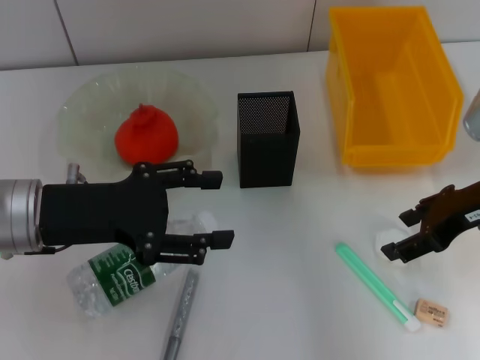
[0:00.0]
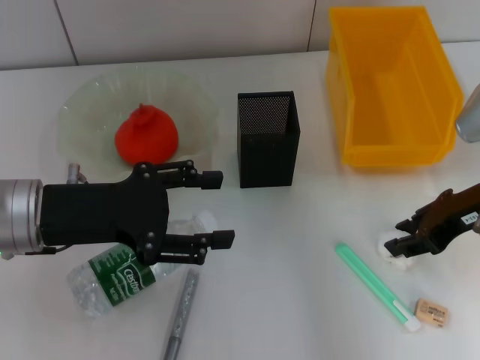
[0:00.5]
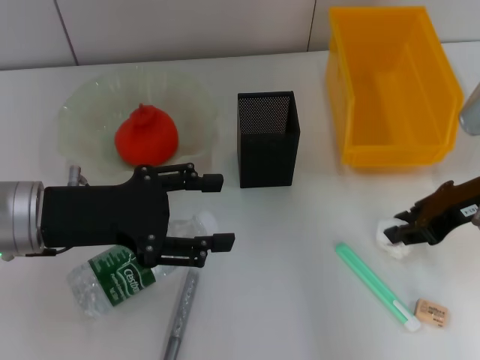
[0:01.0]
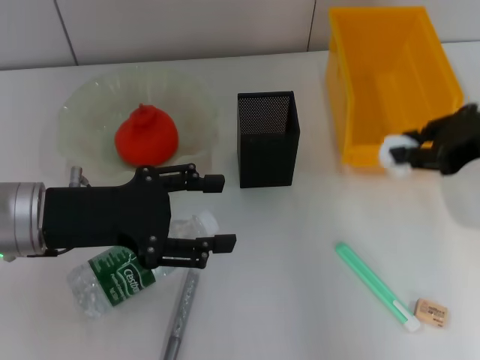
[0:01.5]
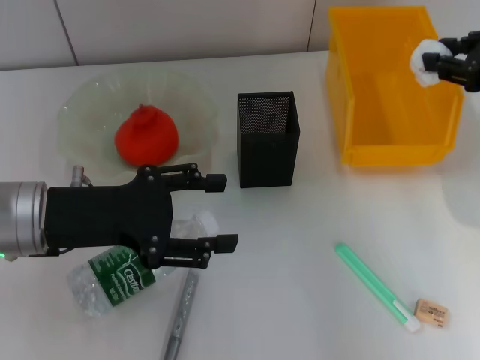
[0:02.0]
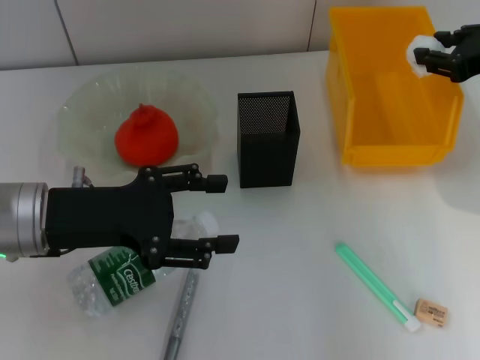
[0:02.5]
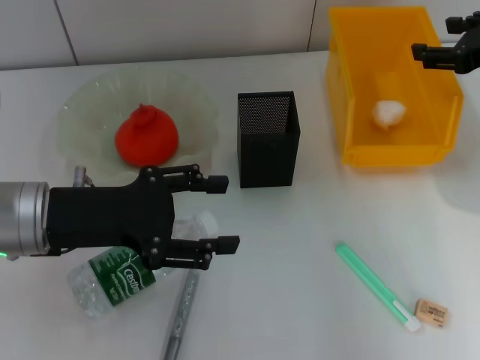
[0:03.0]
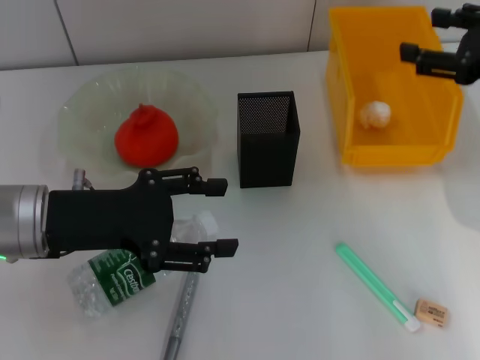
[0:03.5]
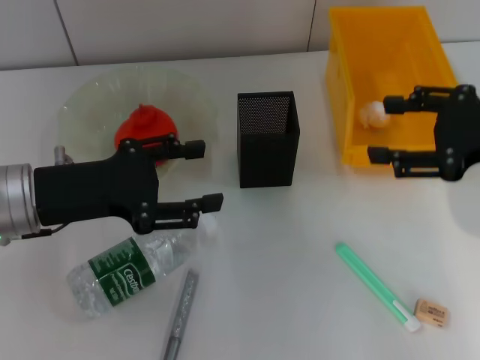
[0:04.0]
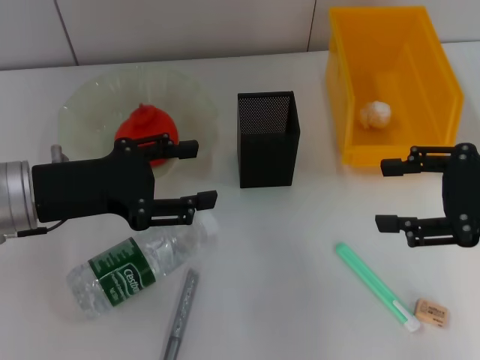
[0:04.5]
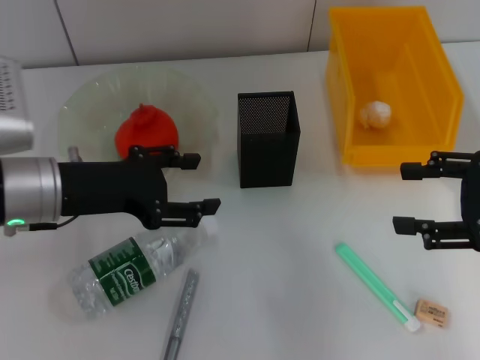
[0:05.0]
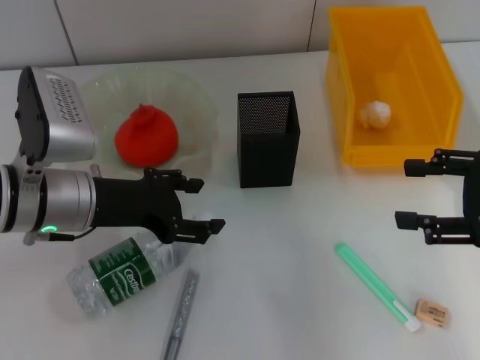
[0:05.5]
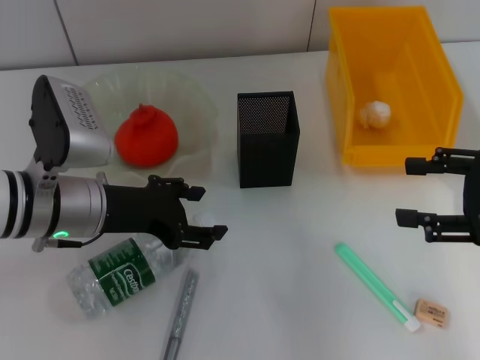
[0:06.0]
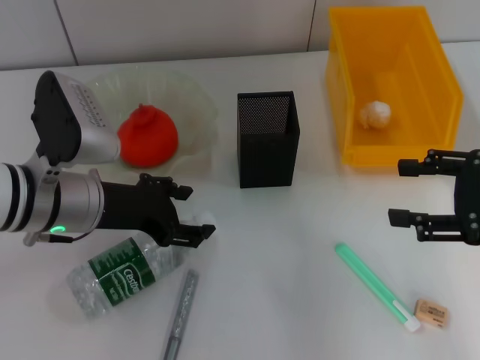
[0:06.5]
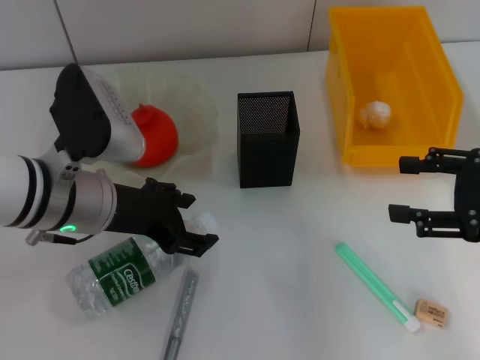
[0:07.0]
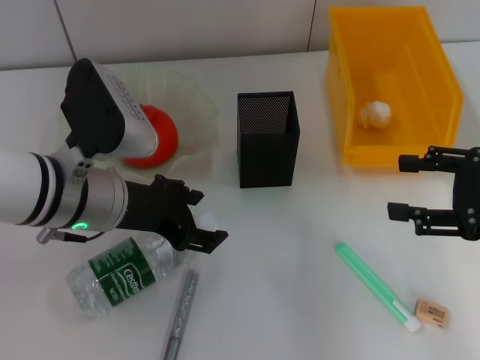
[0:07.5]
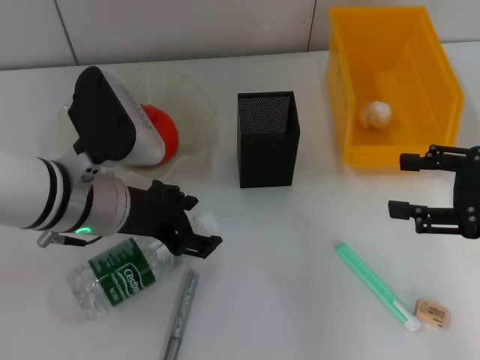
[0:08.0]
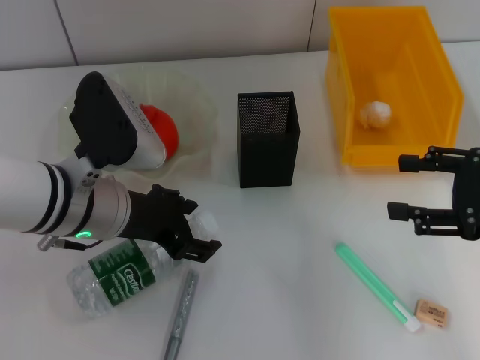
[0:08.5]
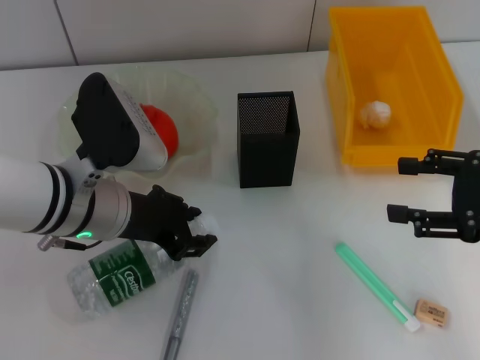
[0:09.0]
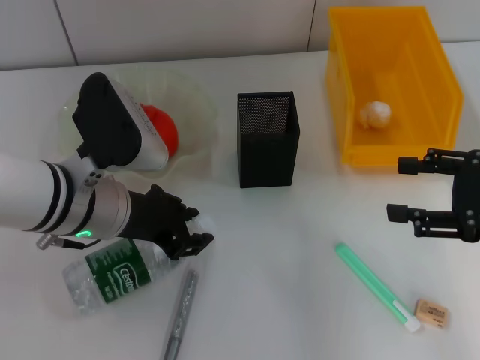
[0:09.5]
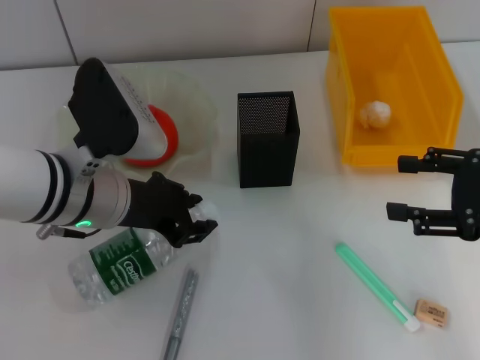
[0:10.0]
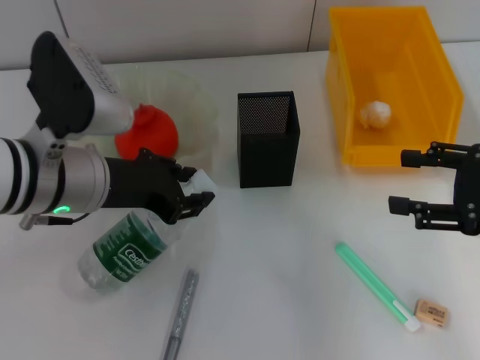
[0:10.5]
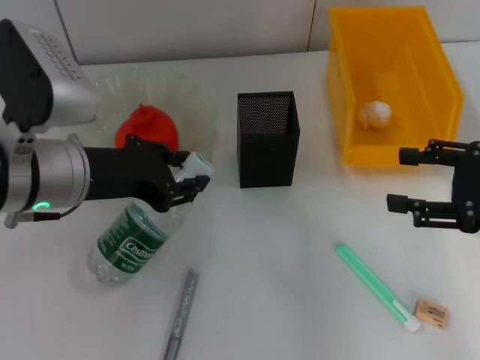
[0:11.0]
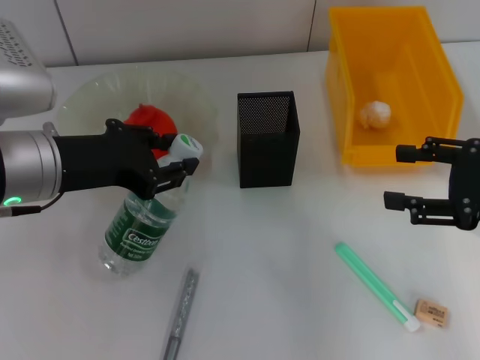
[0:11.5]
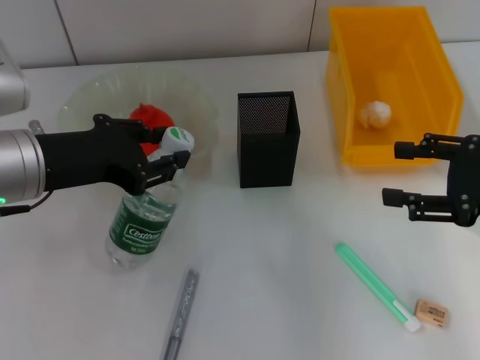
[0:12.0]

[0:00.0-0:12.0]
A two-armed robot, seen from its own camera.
Step, 1.0 to 3.0 s: Place the paper ball into the trash can with the right hand.
Step, 3.5 to 9.5 s: Grab the water bottle with the left hand.
0.0 to 2.0 s: The right gripper goes roughly 10 cm upward, and closes up.
2.0 to 4.0 s: The right gripper moves approximately 5 cm, and opens up.
4.0 to 6.0 s: The left gripper changes place by approximately 5 cm. Meanwhile the right gripper moves approximately 5 cm.
6.0 to 8.0 s: The grippers stay close to where they were, moving slightly.
8.0 to 10.0 s: The left gripper closes up.
10.0 to 12.0 s: The left gripper goes some 5 cm to the left.

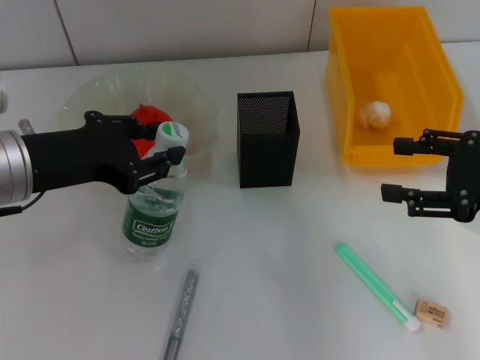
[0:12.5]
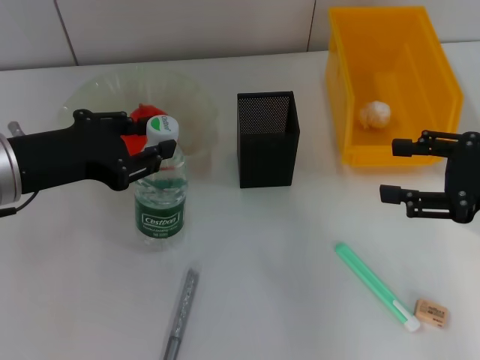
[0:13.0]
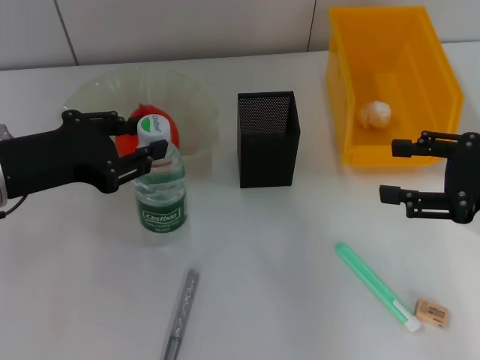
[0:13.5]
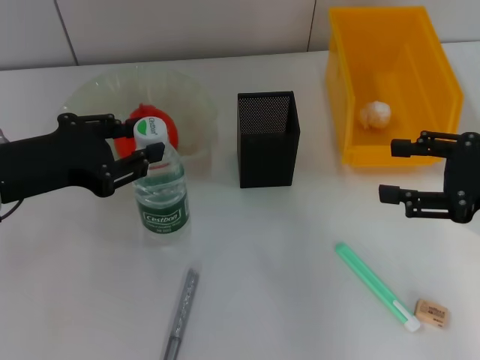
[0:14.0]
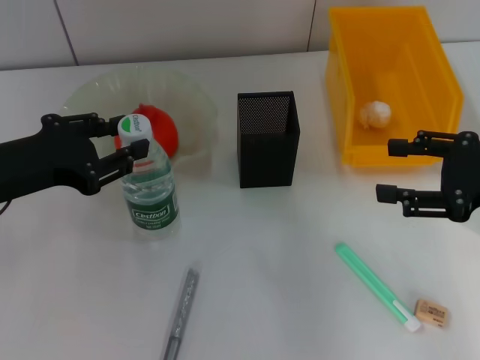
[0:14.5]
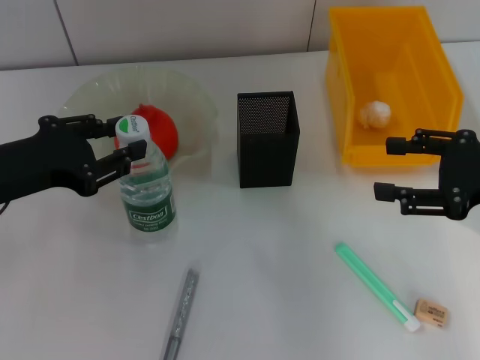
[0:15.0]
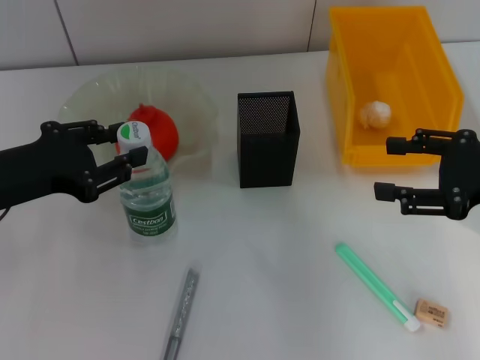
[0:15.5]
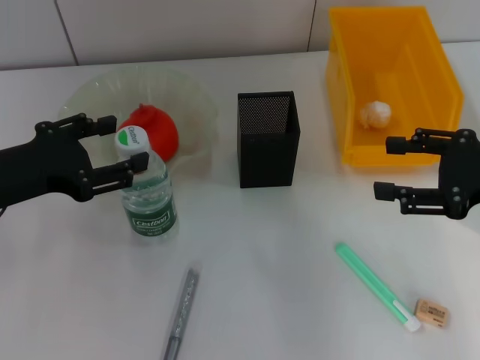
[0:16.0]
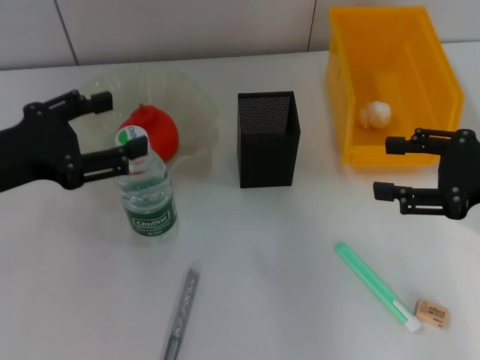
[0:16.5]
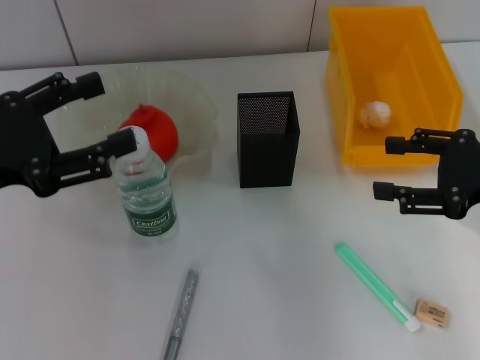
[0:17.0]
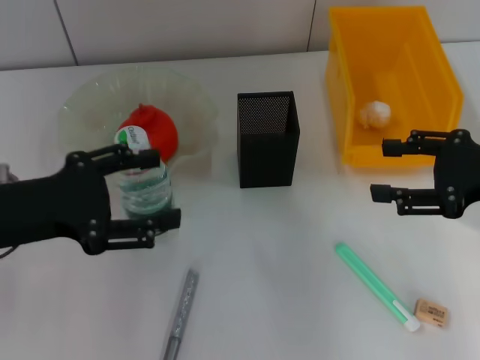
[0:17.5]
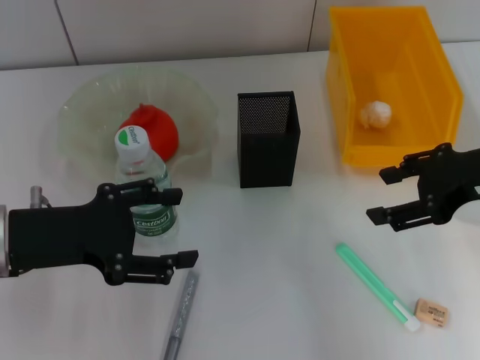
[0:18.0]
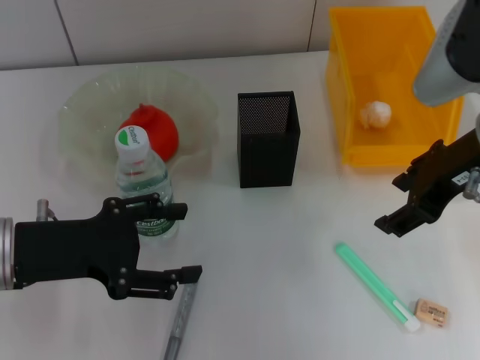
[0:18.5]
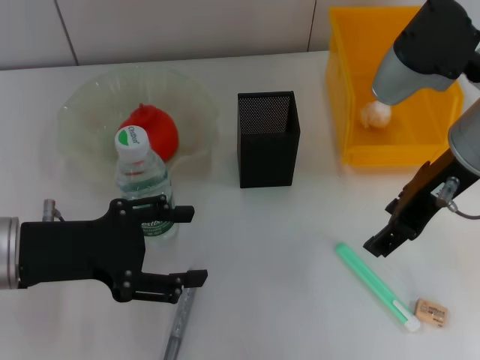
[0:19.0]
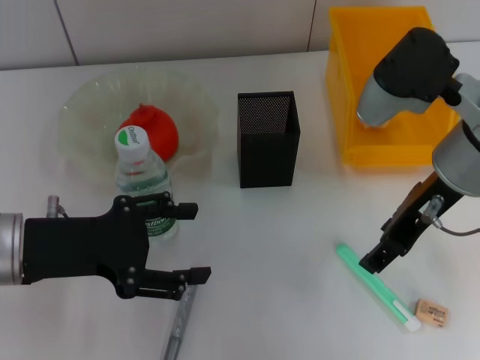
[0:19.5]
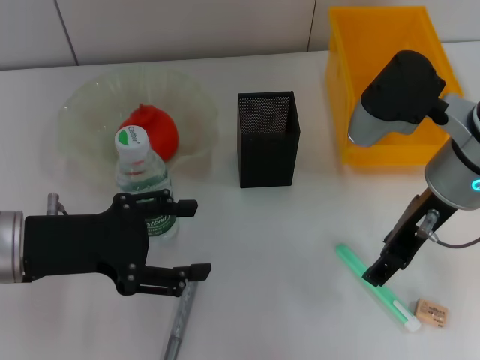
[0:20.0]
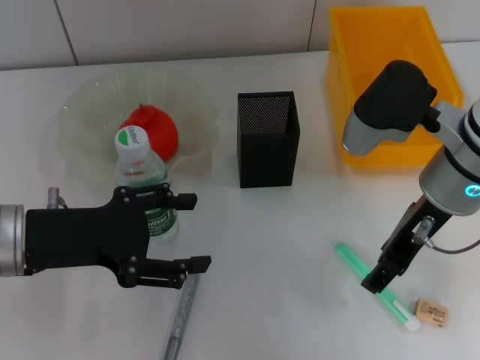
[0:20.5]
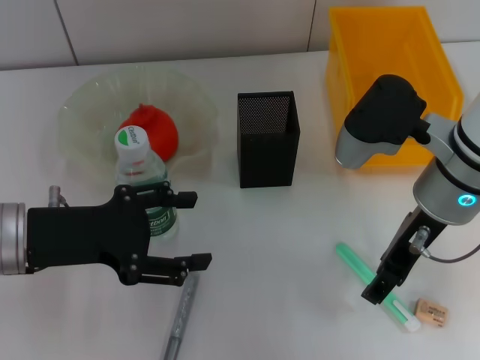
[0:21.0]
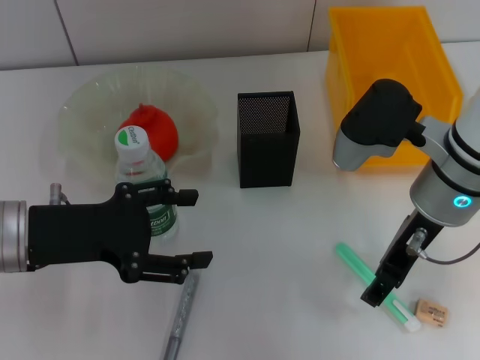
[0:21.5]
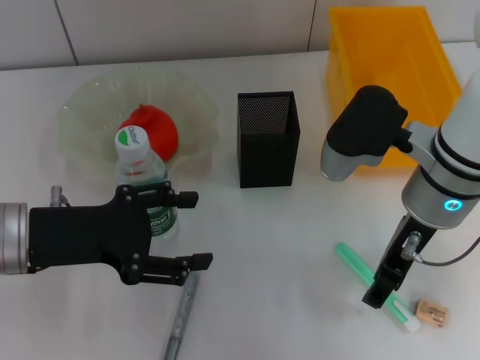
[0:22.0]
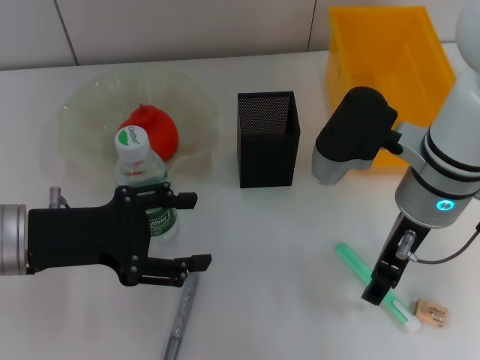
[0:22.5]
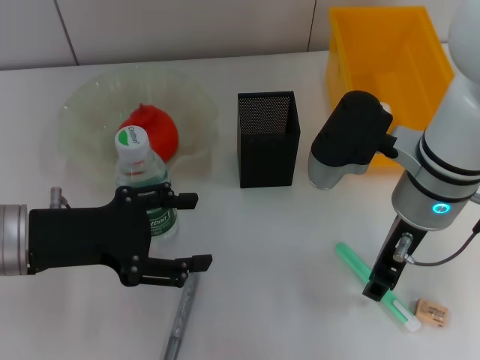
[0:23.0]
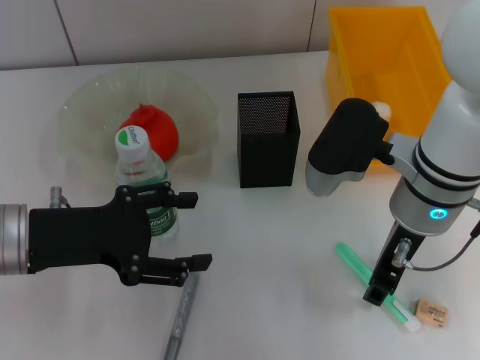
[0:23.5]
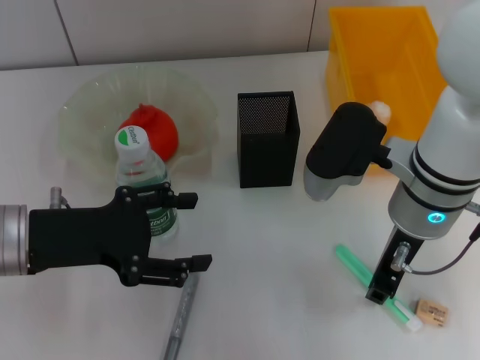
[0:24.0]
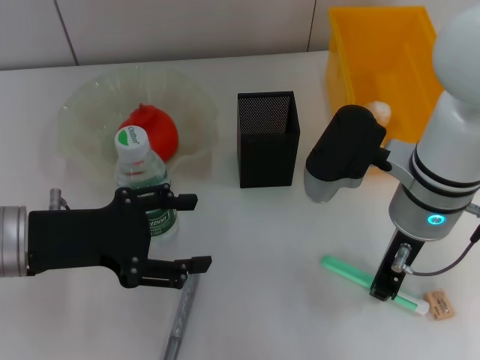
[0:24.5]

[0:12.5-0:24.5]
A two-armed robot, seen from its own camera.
Step, 12.5 to 16.0 s: Place the water bottle on the table with the left hand.
12.5 to 14.5 s: The grippers make only small movements.
14.5 to 16.5 s: The left gripper opens its fingers.
16.5 to 18.5 s: The right gripper travels to the left and upward by about 10 cm.
18.5 to 20.5 s: The right gripper heads downward, covering roughly 5 cm.
20.5 to 22.5 s: The grippers move only a little.
22.5 to 24.5 s: The right gripper closes up.

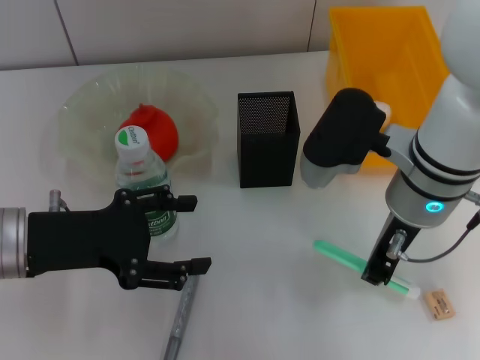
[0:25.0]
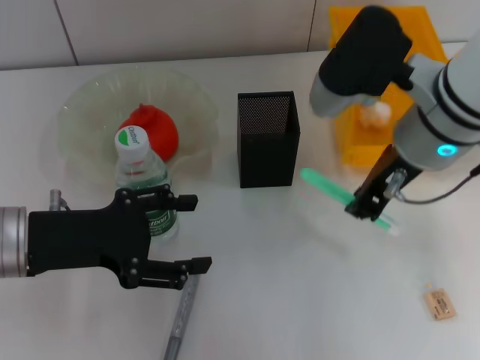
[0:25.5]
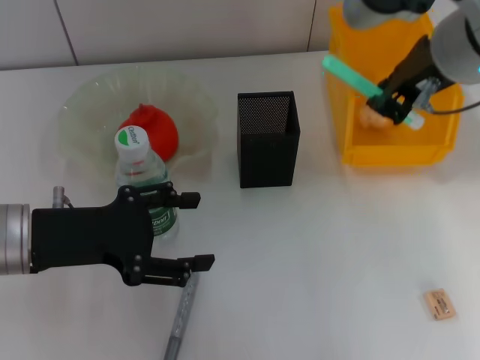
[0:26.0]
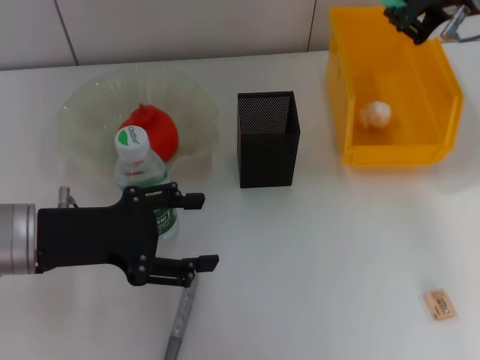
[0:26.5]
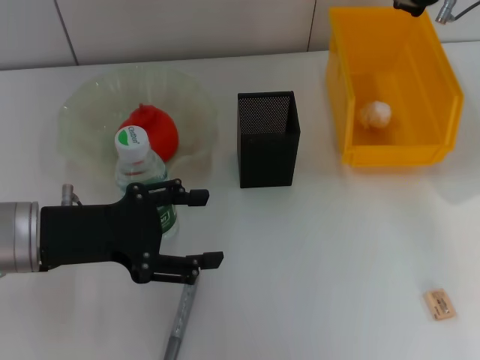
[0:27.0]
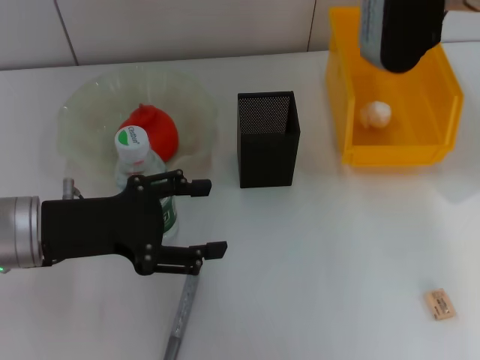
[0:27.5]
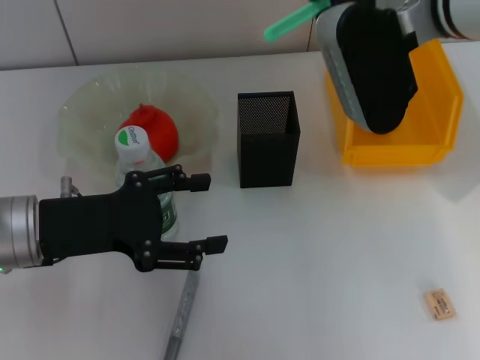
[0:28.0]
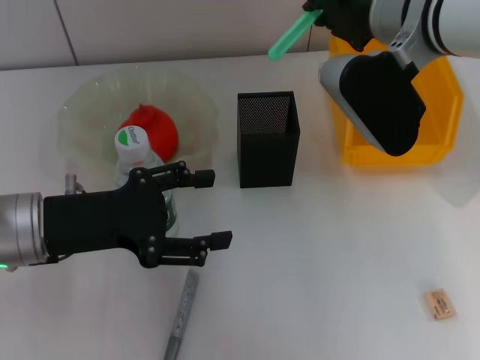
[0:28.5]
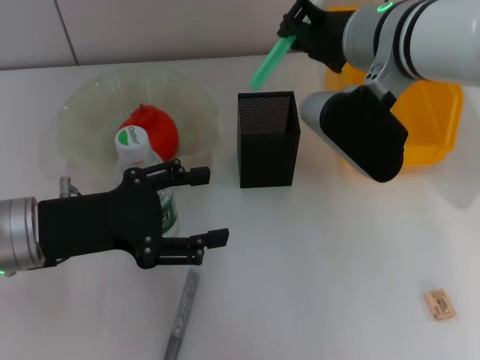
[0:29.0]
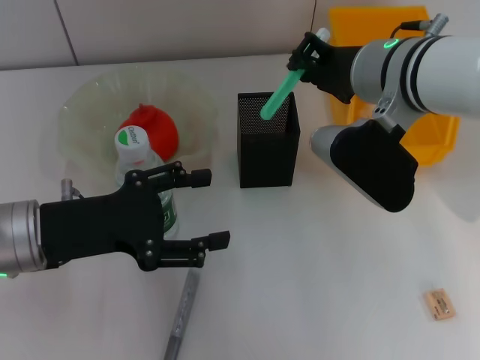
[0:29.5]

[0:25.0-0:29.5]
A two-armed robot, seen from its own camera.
25.0 to 27.0 s: The right gripper shifts about 15 cm upward, forward and to the right.
27.0 to 29.5 s: The right gripper goes approximately 10 cm downward and to the left.
